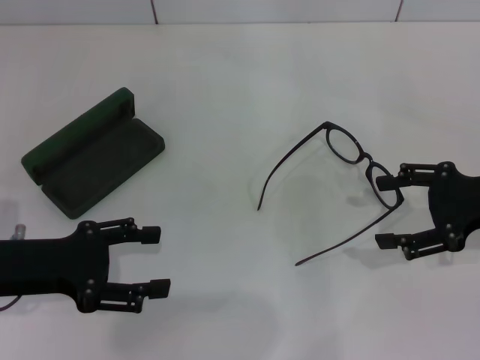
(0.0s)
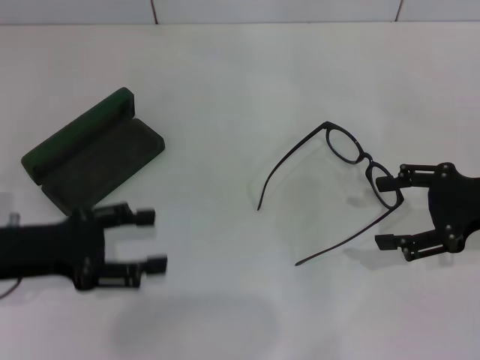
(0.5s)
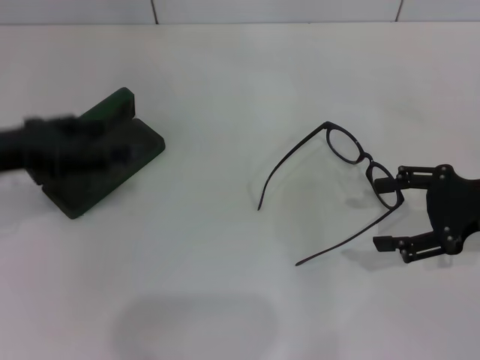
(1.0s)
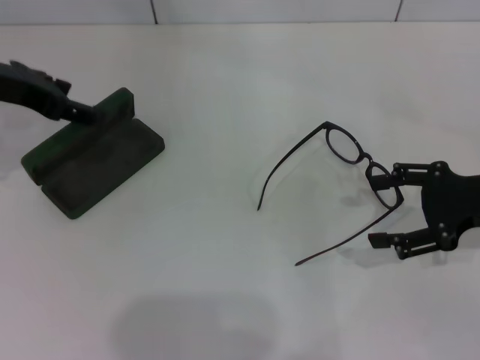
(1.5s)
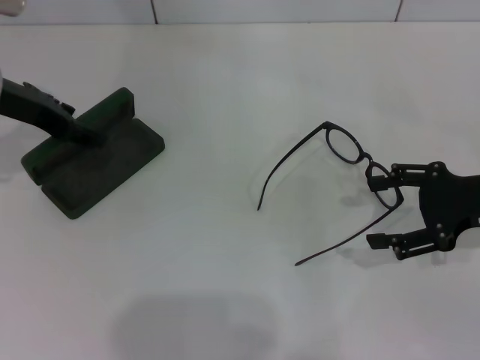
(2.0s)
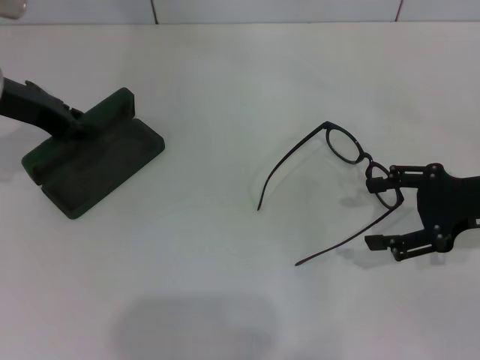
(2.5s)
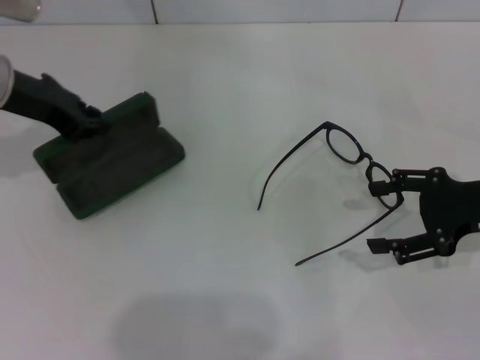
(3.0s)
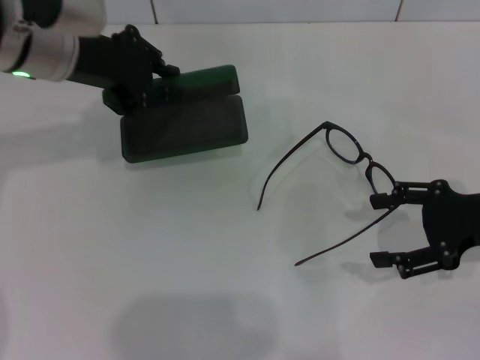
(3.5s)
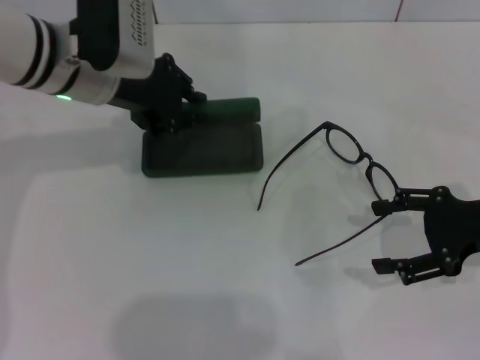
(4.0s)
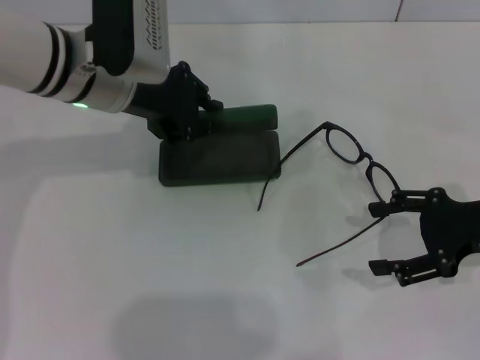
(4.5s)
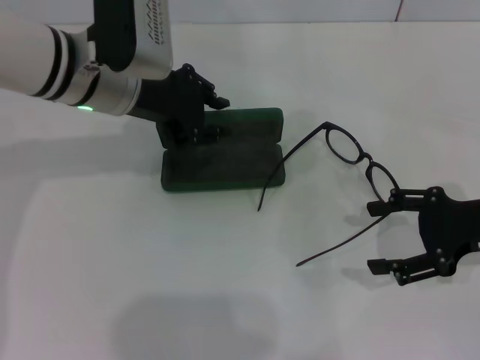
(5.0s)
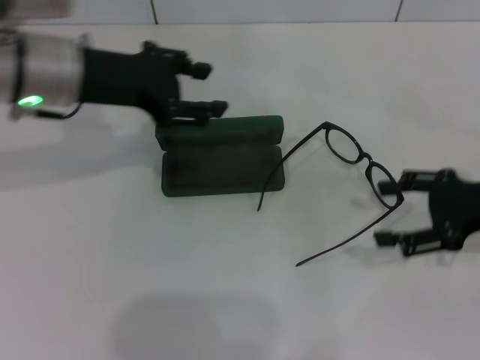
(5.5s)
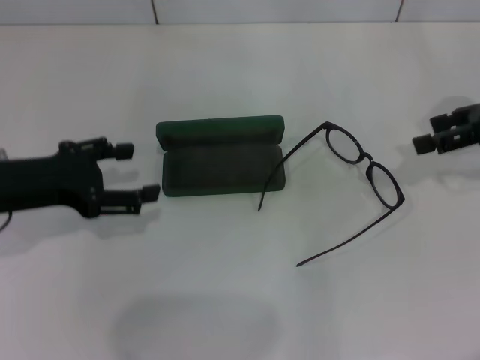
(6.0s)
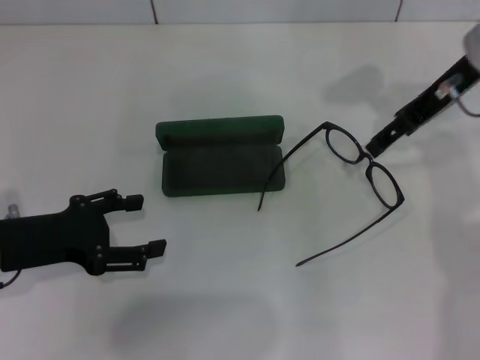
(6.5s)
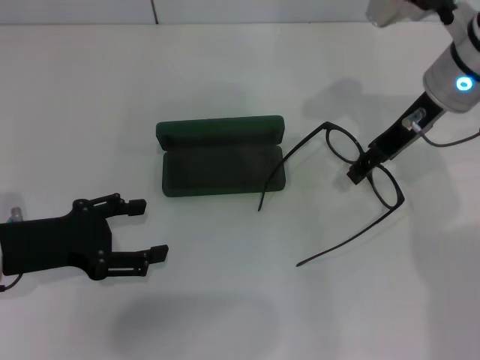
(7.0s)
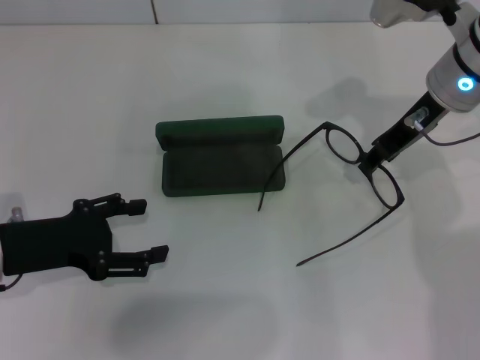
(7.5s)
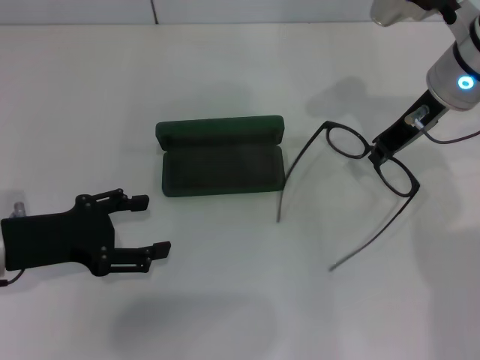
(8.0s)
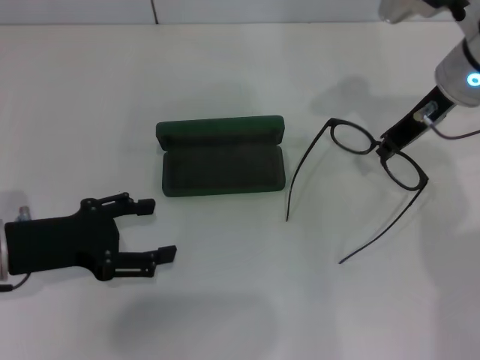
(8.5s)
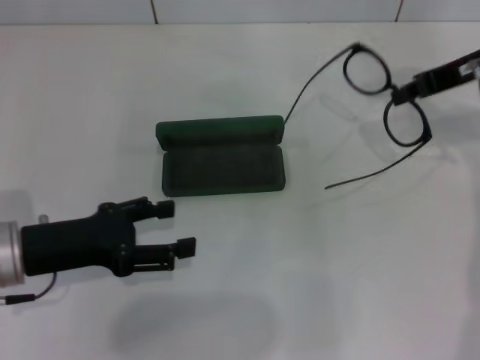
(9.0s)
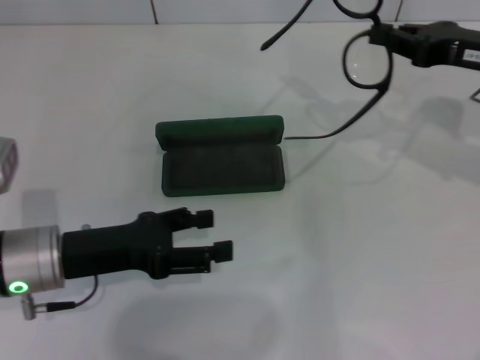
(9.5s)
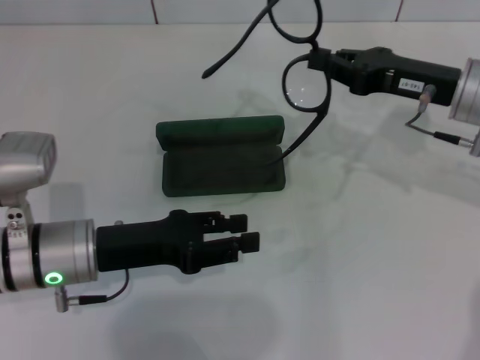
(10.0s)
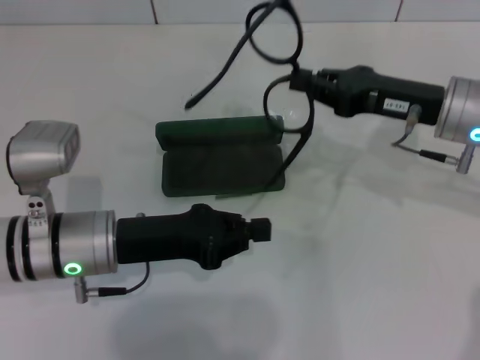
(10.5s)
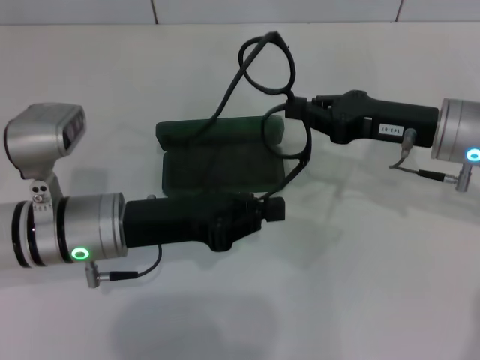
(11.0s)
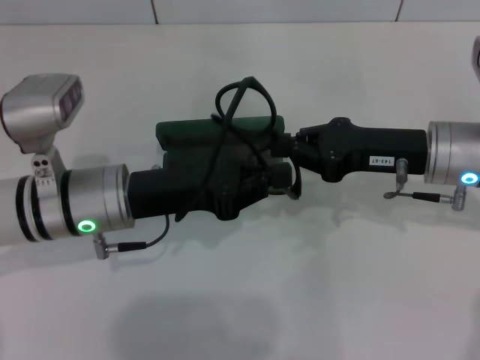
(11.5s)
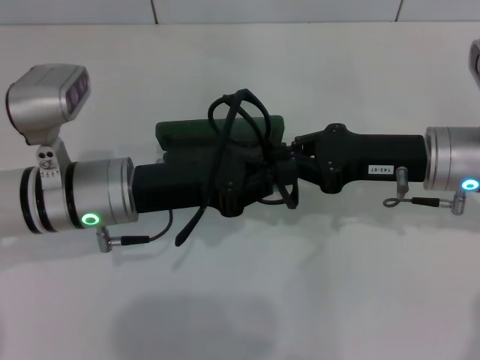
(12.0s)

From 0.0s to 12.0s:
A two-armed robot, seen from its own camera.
Step, from 0.0s to 2.5s: Grab the glasses case with your left hand.
Step, from 3.0s to 5.0s: Place the glasses case in the center of the table with your left hand.
Step, from 5.5s to 7.5s: Grab the eyeglass frame with your right hand.
From 0.0s to 2.0s: The left gripper shifts roughly 15 cm forward and upward.
From 2.0s to 4.0s: The left gripper heads to the right, covering approximately 10 cm, and closes its fingers.
From 4.0s to 6.0s: The left gripper heads backward and to the left, covering some 15 cm, and opens up. Meanwhile the right gripper moves forward and upward, approximately 10 cm.
From 6.0s to 8.0s: The right gripper moves to the left, roughly 15 cm, and closes. The left gripper changes place by approximately 5 cm.
From 8.0s to 10.0s: The right gripper shifts by some 5 cm. Meanwhile the left gripper is displaced to the right by about 5 cm.
From 10.0s to 12.0s: The left gripper ends up approximately 5 cm from where it was, and closes up. The right gripper ends up approximately 5 cm from where it was.

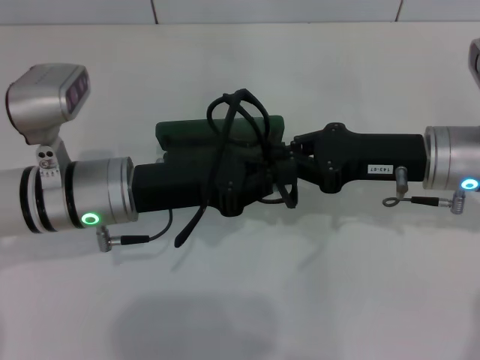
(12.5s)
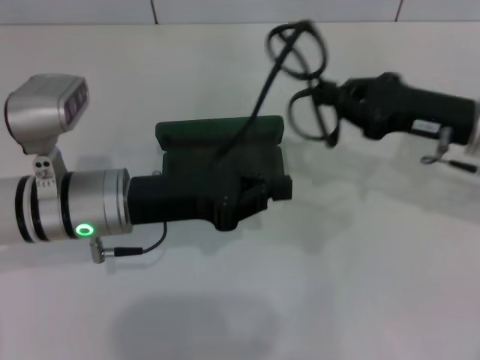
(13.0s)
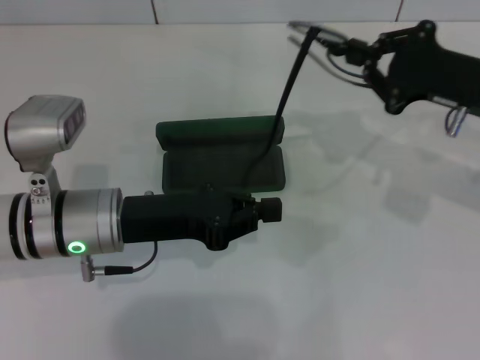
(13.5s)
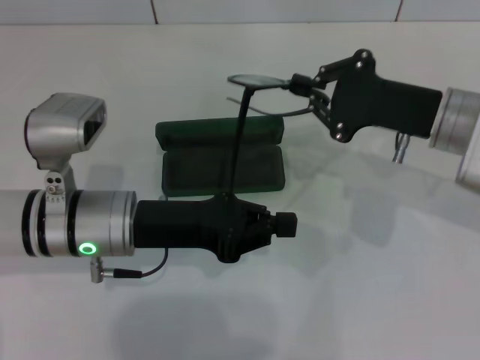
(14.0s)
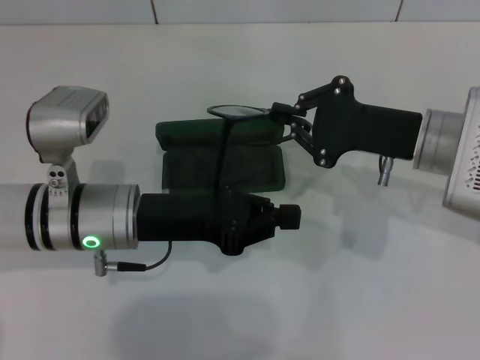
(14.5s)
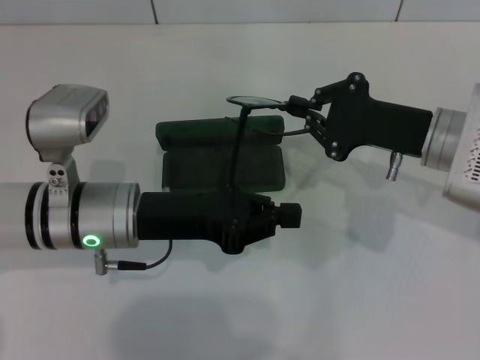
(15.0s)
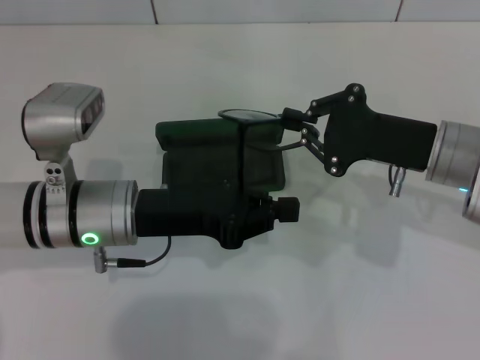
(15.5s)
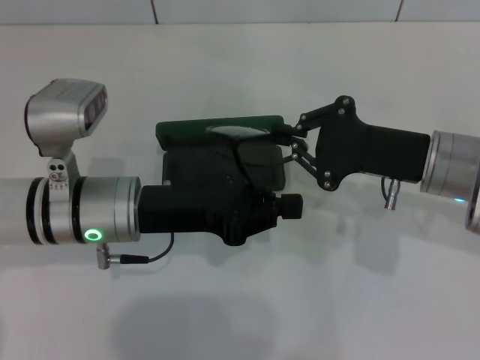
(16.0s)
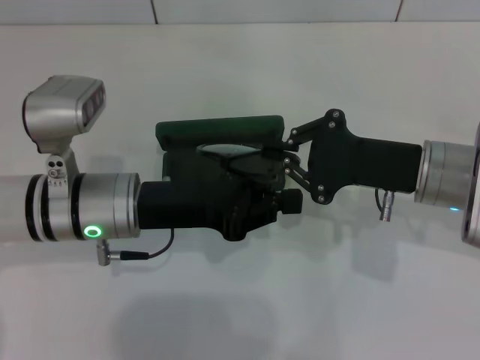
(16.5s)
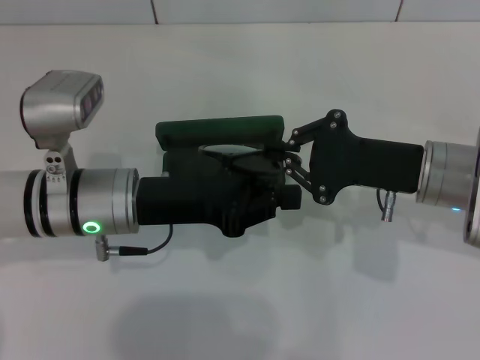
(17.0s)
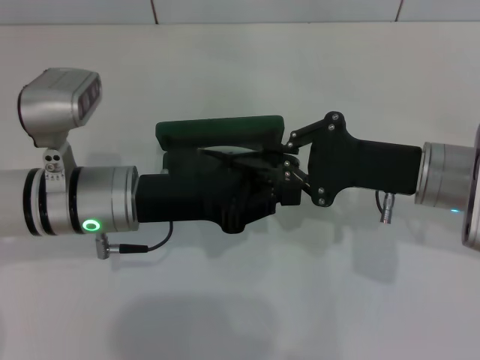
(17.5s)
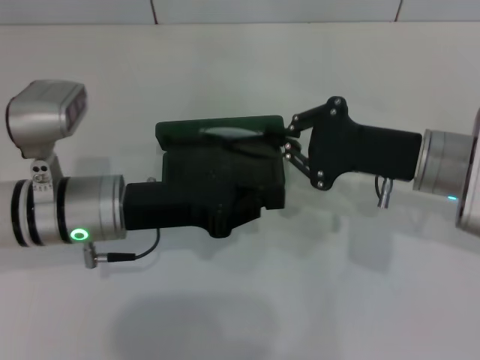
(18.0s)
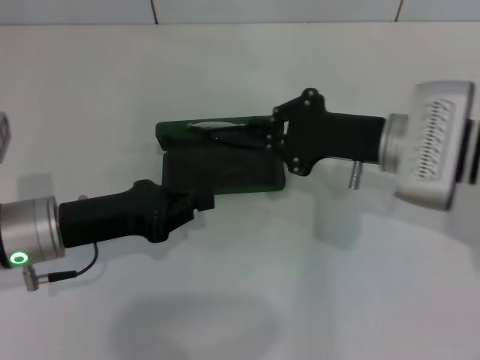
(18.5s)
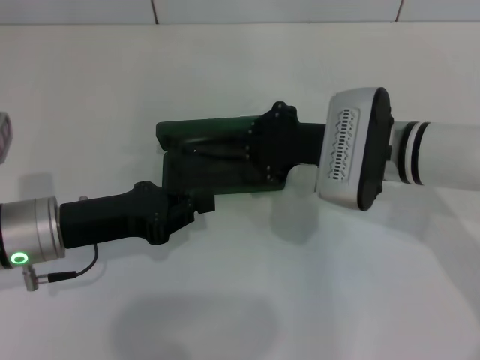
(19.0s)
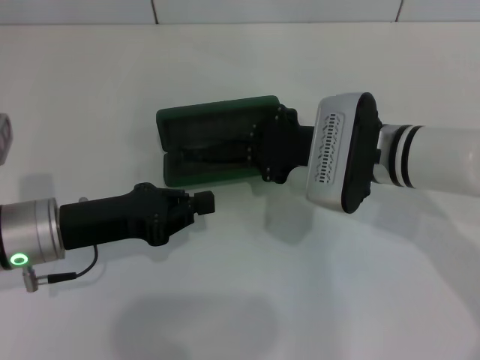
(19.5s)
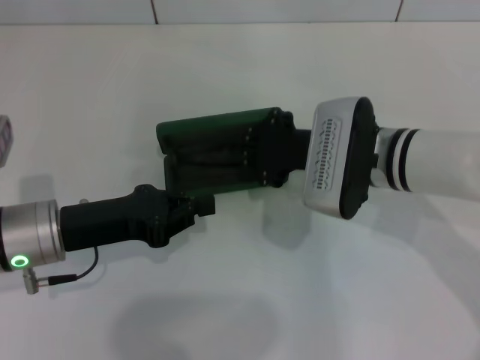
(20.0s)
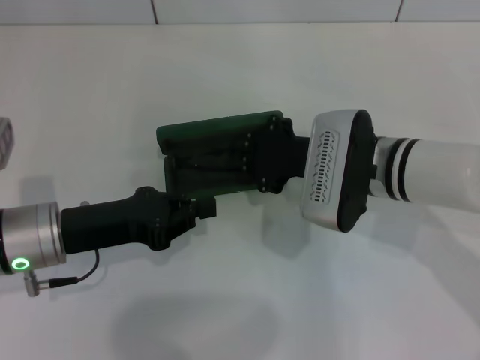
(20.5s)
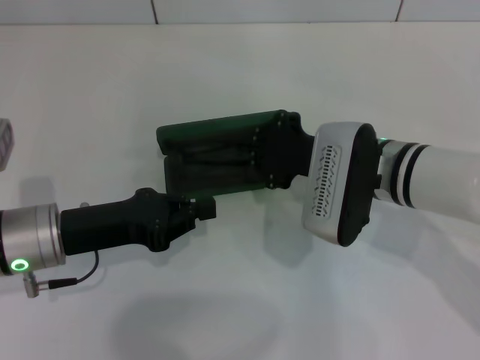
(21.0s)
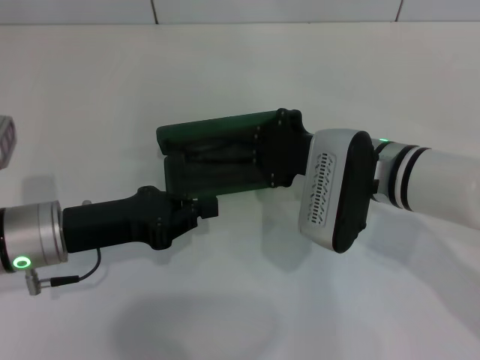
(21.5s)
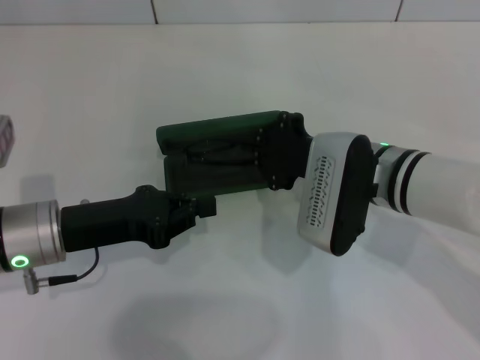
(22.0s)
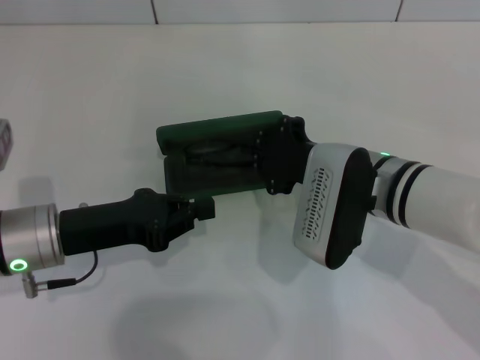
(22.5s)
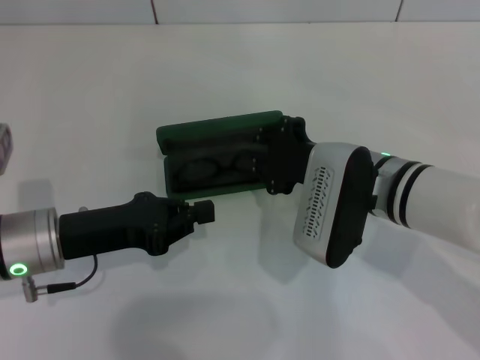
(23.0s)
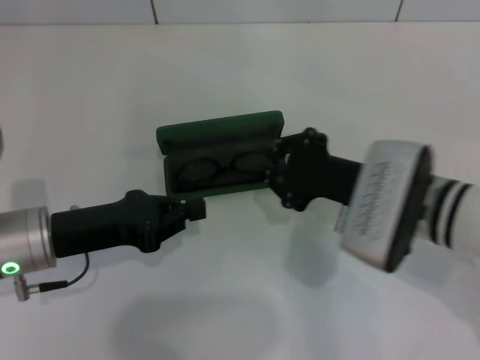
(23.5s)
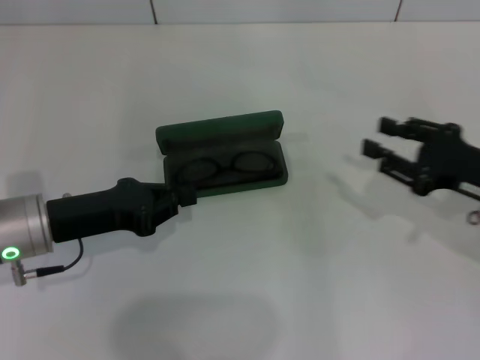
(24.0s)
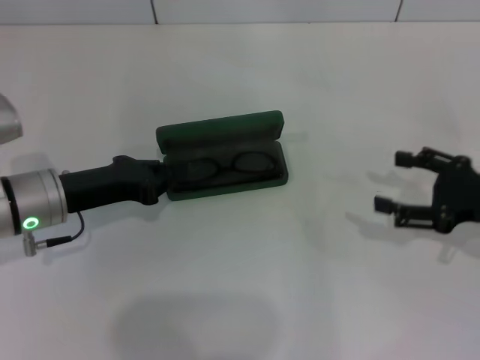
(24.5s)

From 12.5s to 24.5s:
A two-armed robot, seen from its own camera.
Step, from 12.5s to 16.0s: Fold the frame with your left hand.
Step, from 16.5s to 22.5s: Put the glasses into the case with your right hand.
From 14.5s to 16.5s: The grippers make only small movements.
From 16.5s to 18.5s: The left gripper shifts some 5 cm to the left.
From 18.5s to 20.5s: The right gripper shifts approximately 5 cm to the left.
From 20.5s to 22.5s: There are only small adjustments of the grippers.
From 22.5s to 24.5s: The right gripper shifts approximately 20 cm to the right, and opens up.

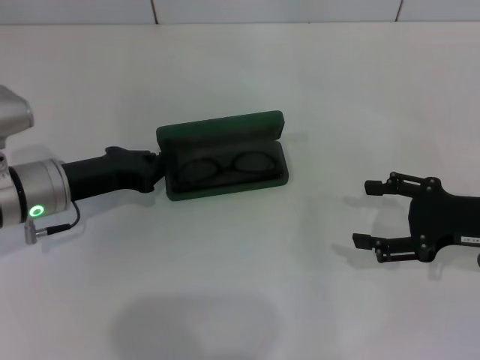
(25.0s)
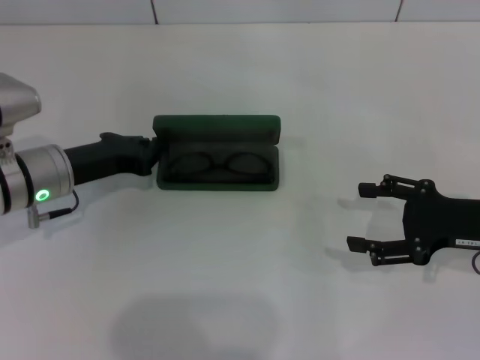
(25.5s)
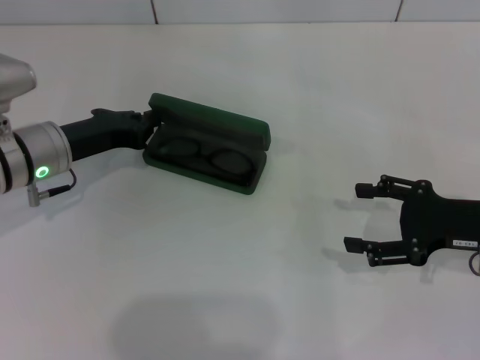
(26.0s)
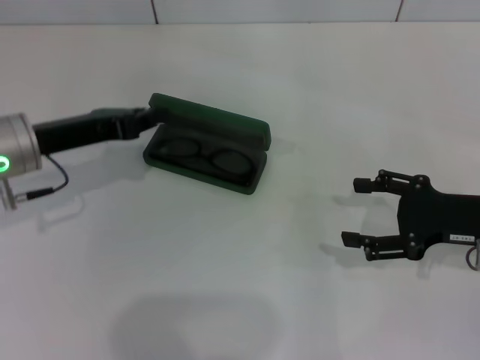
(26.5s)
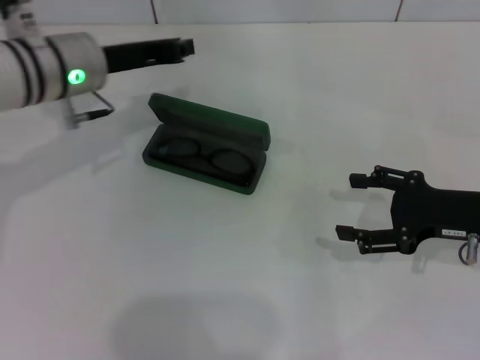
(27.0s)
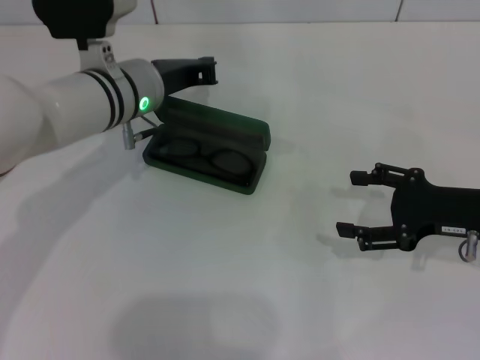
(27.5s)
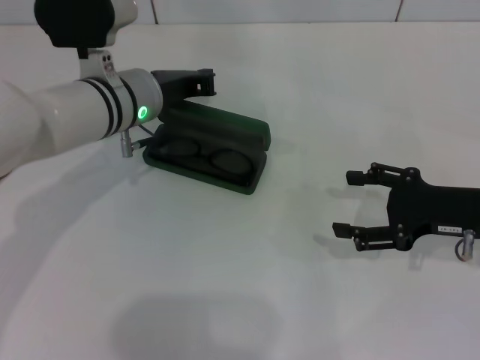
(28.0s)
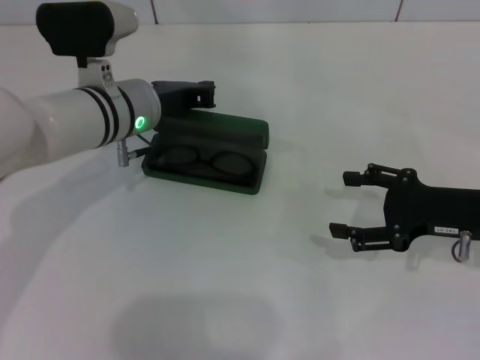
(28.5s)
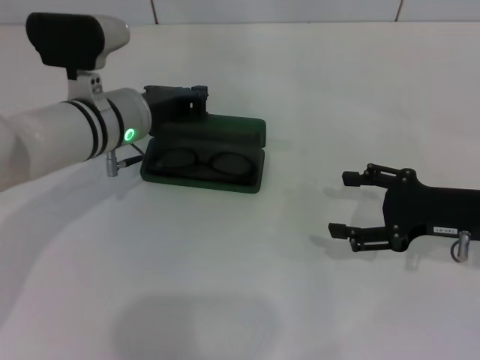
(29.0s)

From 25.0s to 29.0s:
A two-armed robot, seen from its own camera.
From 25.0s to 27.0s: The left gripper moves upward, forward and to the right, approximately 15 cm.
From 27.0s to 29.0s: The left gripper is displaced downward by some 5 cm.
